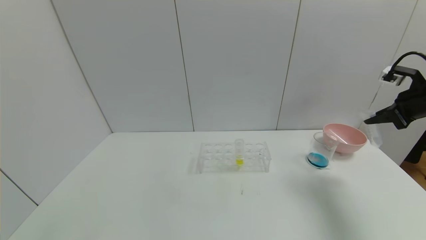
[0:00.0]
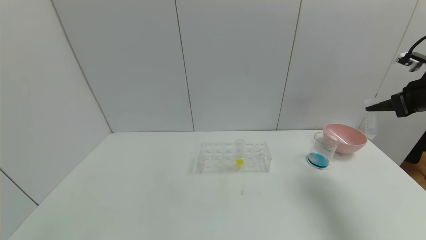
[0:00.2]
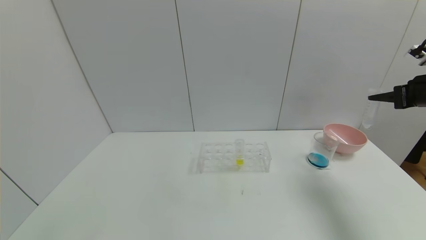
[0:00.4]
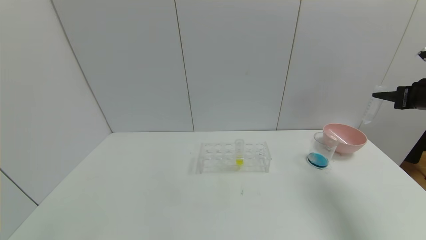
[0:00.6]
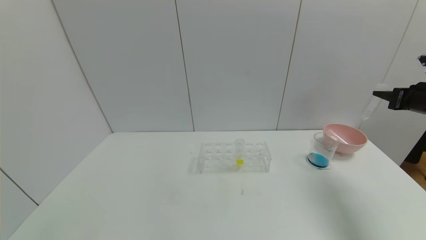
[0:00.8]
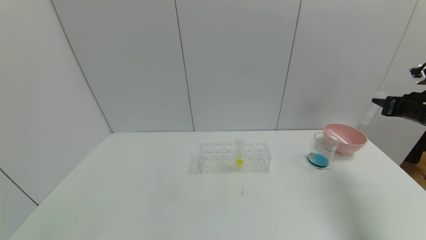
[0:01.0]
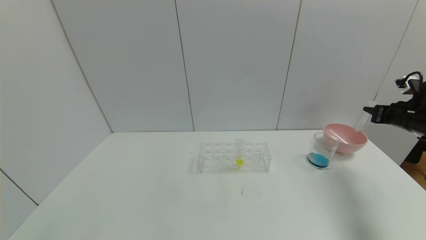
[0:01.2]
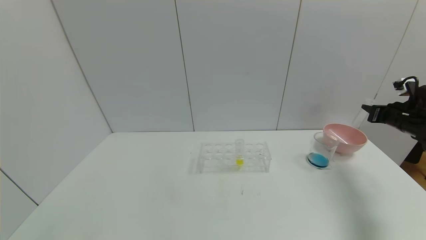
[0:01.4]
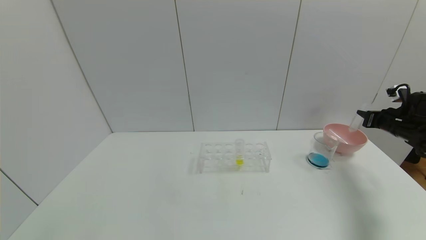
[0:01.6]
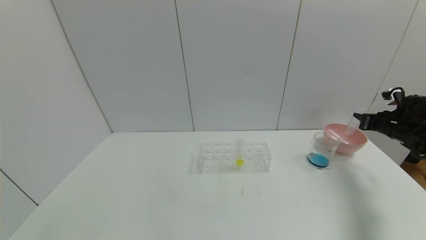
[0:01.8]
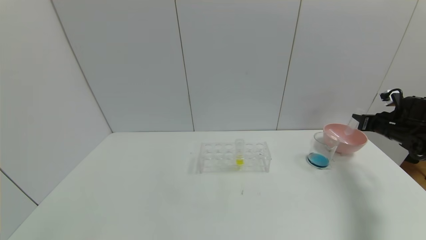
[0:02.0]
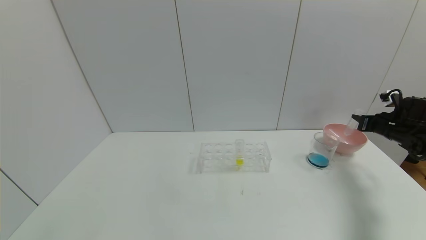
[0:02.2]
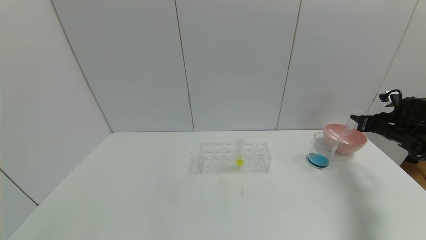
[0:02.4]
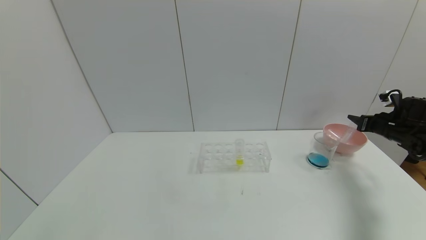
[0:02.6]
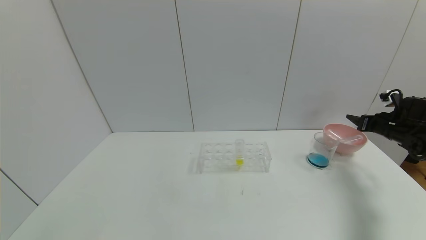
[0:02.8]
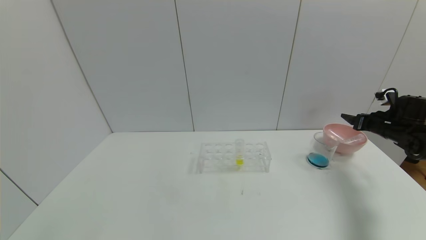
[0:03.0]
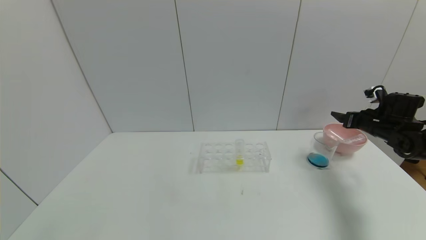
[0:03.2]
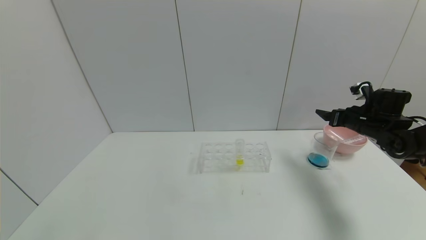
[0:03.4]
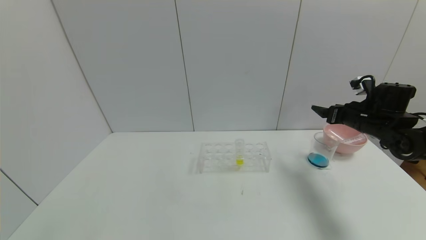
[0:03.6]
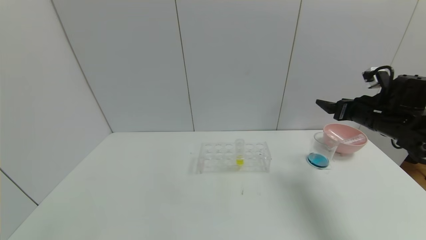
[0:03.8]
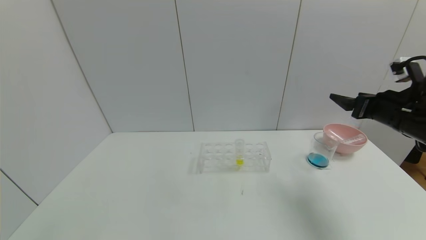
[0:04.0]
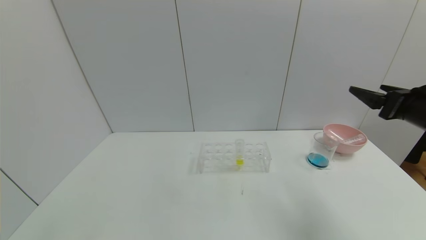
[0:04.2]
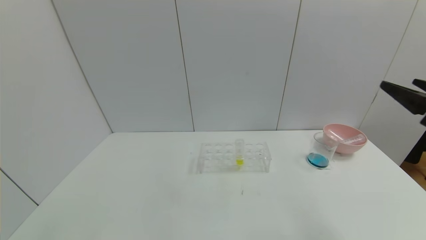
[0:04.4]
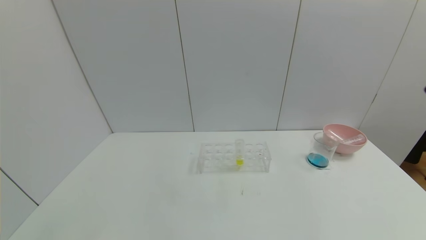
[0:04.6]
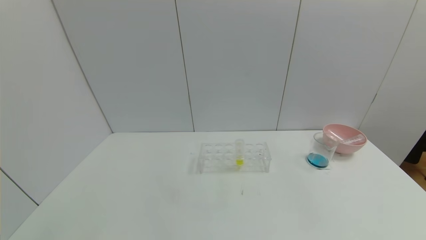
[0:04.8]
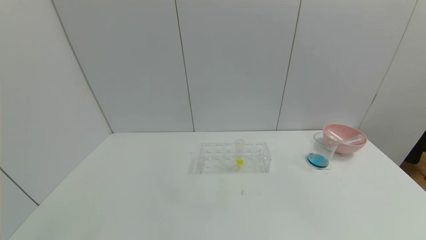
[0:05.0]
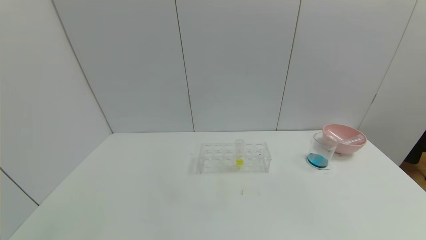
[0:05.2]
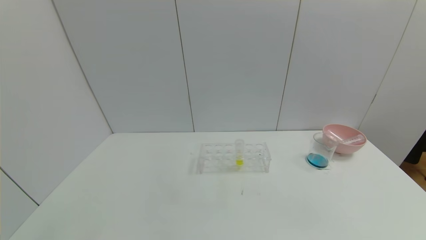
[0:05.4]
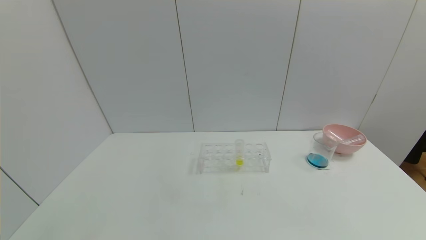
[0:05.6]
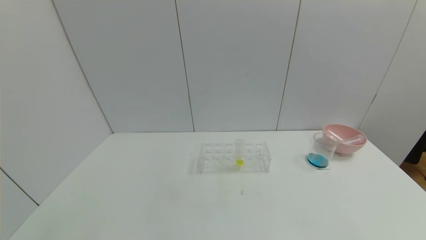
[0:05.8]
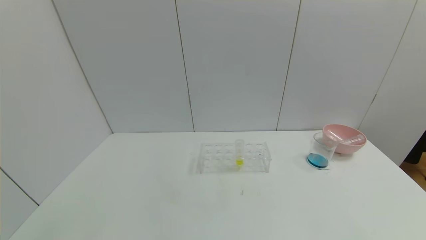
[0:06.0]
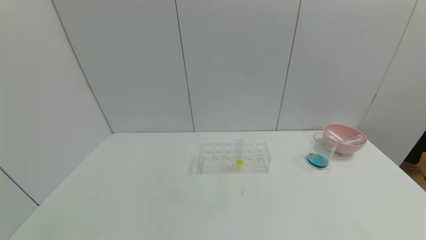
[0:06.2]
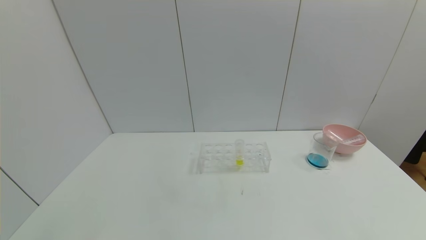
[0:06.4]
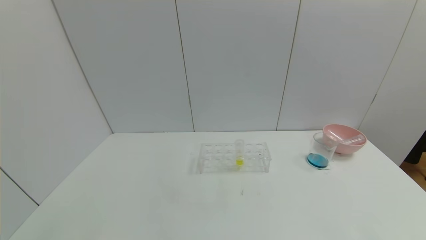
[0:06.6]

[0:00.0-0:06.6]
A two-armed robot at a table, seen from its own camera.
Task of the whole recording: pick up the test tube with red pigment and the test tube with blue pigment by grippers and pour them into the container.
Step, 0:00.0 to 0:02.8: Place the test tube into the bowl with the right gripper.
0:00.0 to 0:01.6: The right gripper shifts about 15 cm downward and forward.
0:01.6 to 0:03.2: The right gripper is displaced to the left by some 5 cm, and opens.
0:03.2 to 0:05.0: The right gripper shifts about 40 cm backward.
